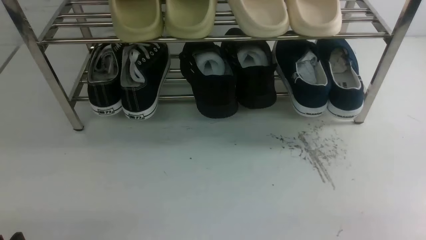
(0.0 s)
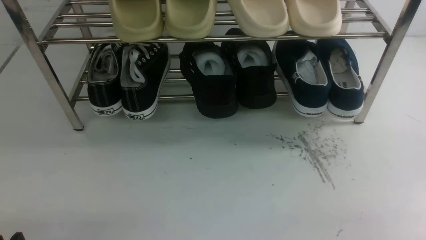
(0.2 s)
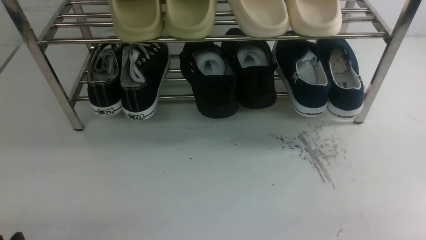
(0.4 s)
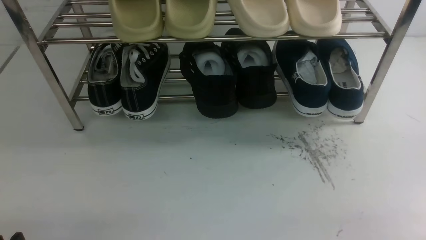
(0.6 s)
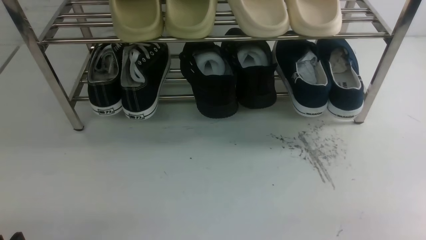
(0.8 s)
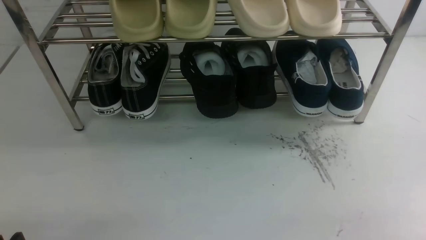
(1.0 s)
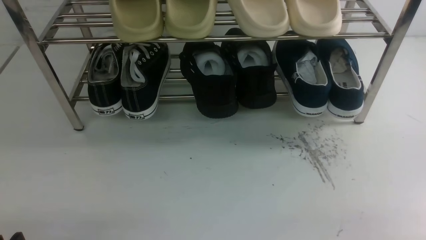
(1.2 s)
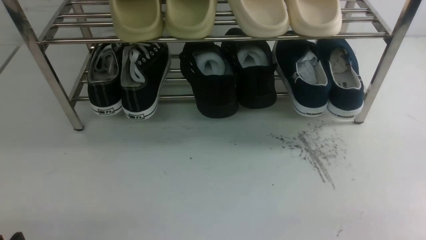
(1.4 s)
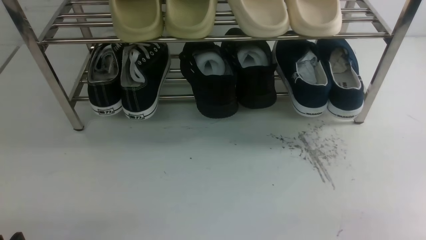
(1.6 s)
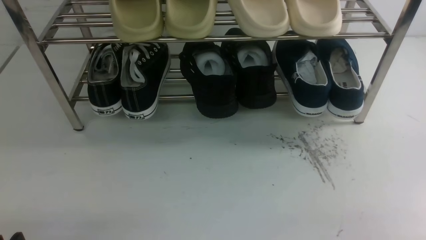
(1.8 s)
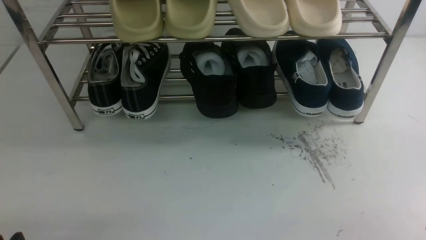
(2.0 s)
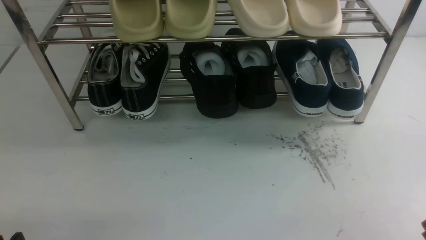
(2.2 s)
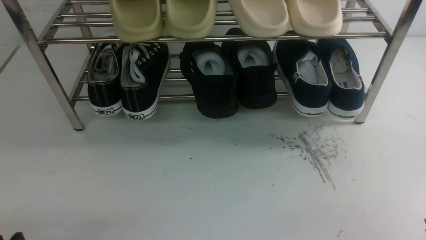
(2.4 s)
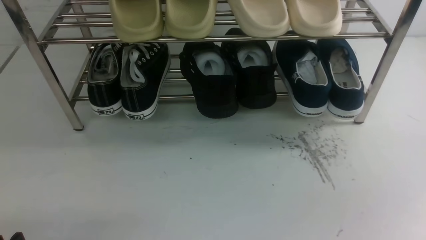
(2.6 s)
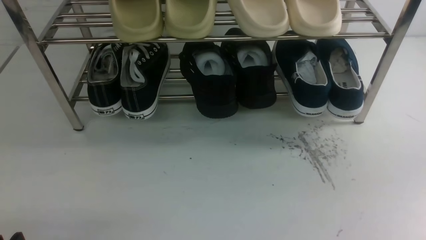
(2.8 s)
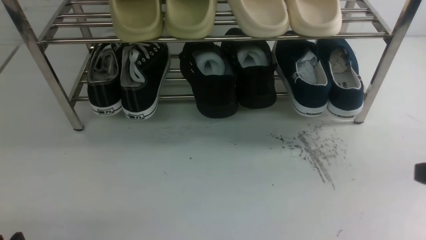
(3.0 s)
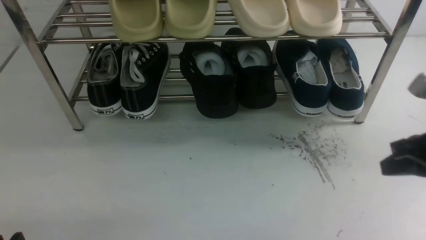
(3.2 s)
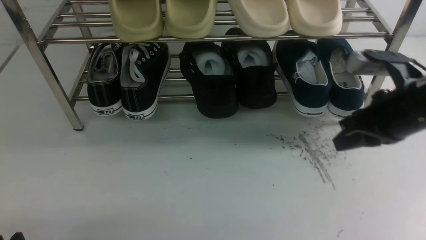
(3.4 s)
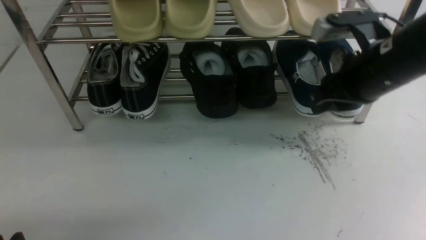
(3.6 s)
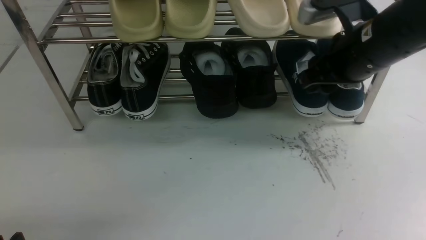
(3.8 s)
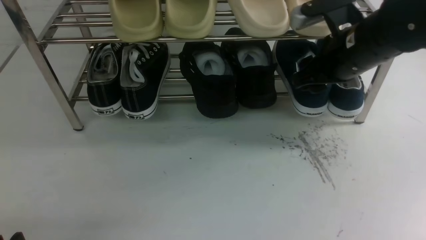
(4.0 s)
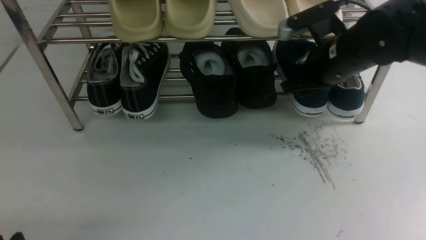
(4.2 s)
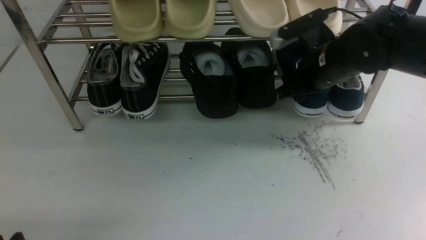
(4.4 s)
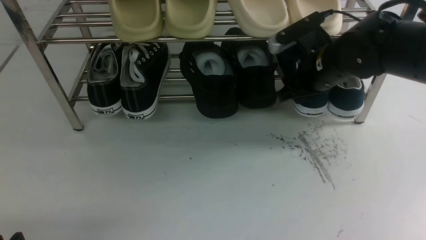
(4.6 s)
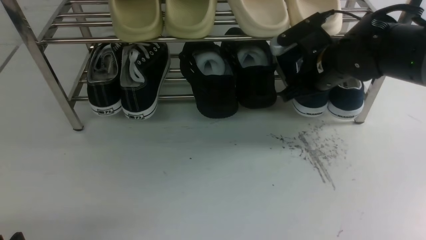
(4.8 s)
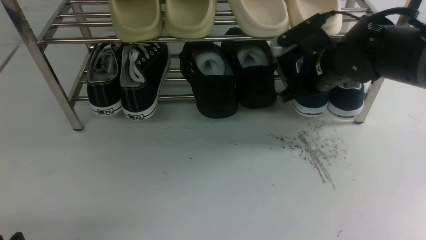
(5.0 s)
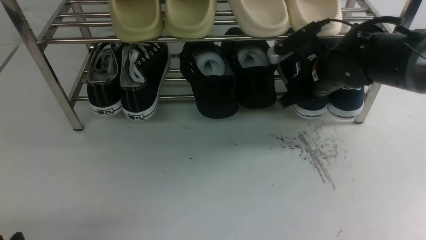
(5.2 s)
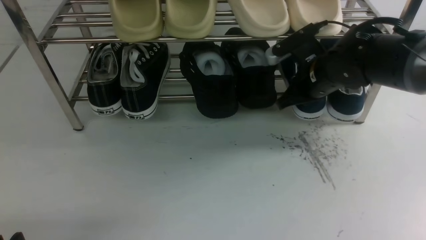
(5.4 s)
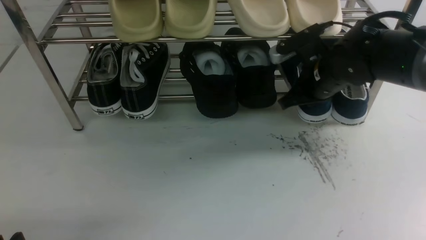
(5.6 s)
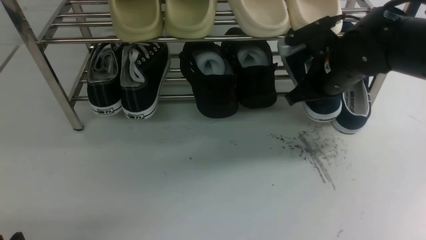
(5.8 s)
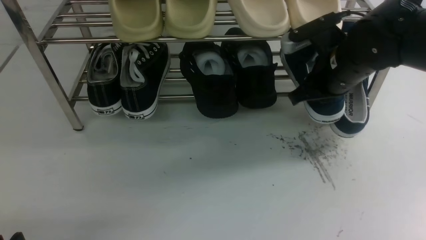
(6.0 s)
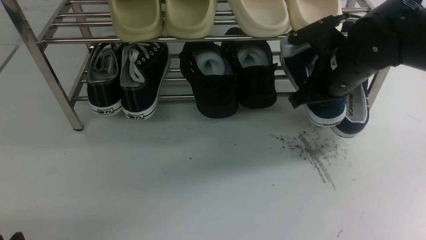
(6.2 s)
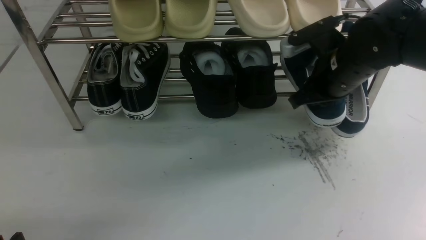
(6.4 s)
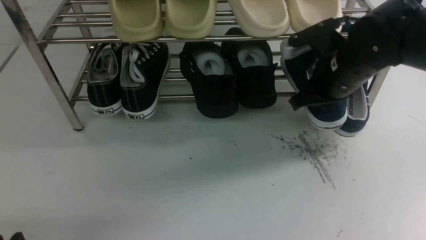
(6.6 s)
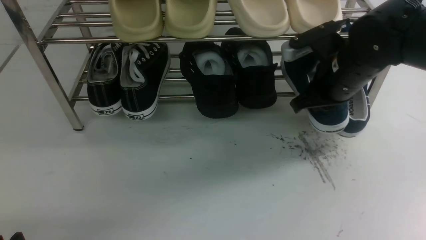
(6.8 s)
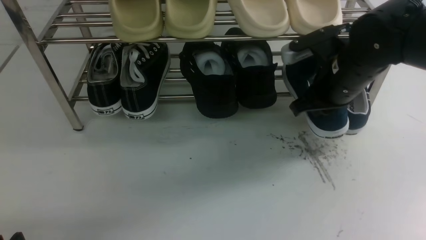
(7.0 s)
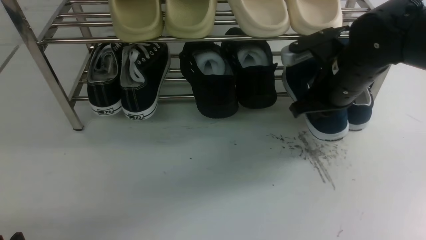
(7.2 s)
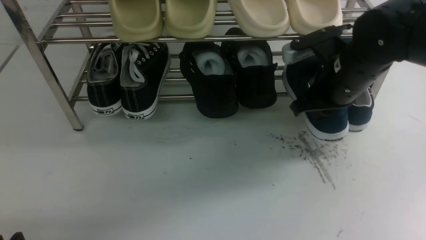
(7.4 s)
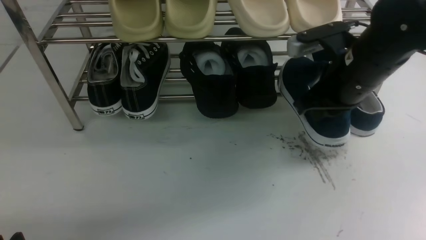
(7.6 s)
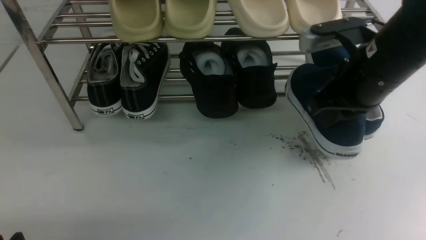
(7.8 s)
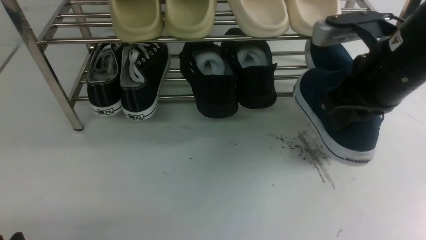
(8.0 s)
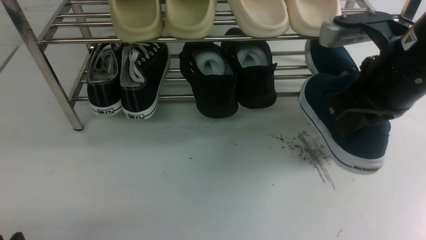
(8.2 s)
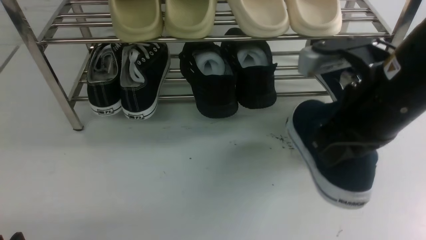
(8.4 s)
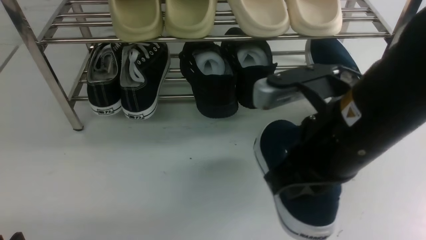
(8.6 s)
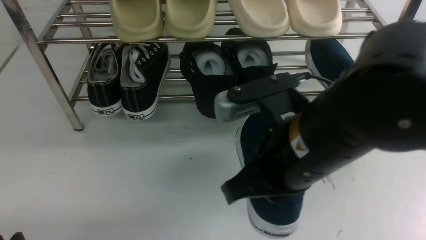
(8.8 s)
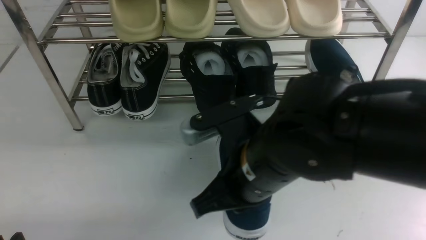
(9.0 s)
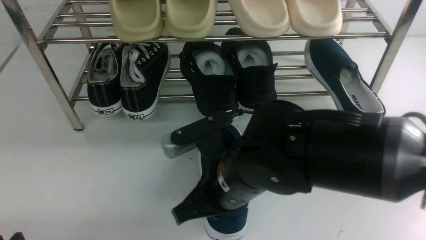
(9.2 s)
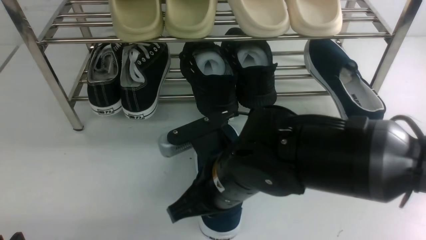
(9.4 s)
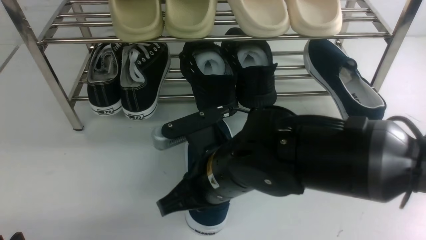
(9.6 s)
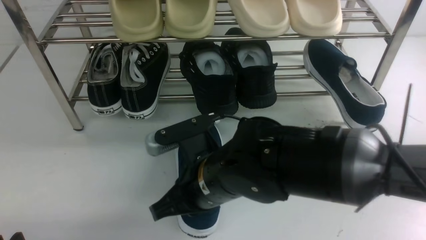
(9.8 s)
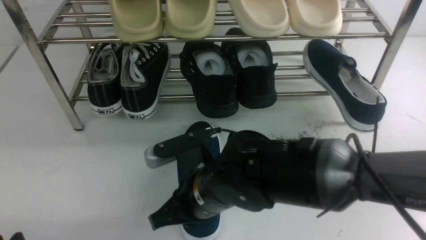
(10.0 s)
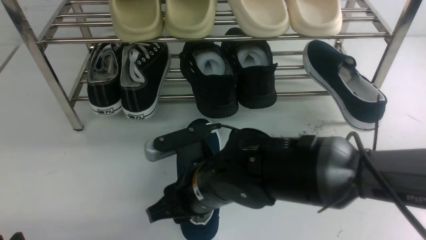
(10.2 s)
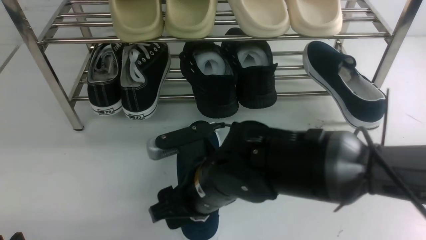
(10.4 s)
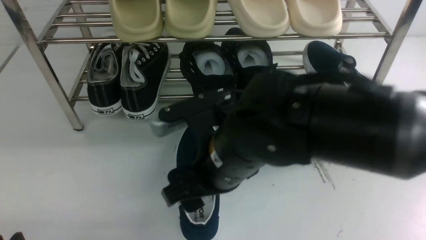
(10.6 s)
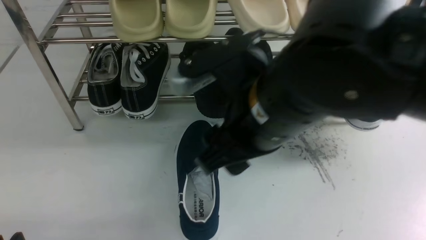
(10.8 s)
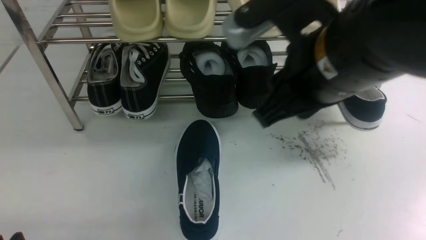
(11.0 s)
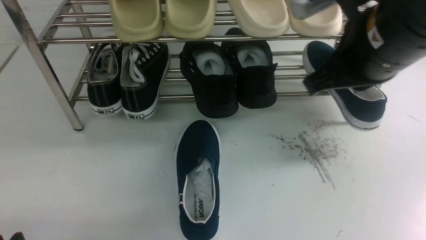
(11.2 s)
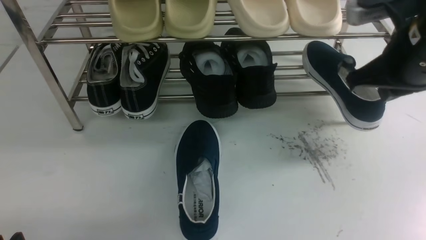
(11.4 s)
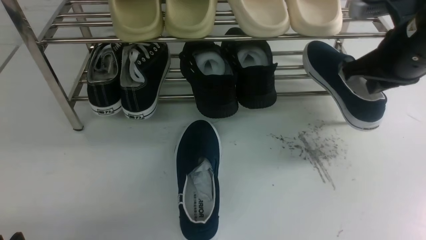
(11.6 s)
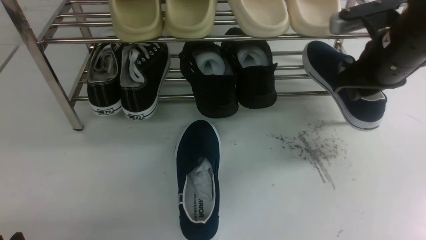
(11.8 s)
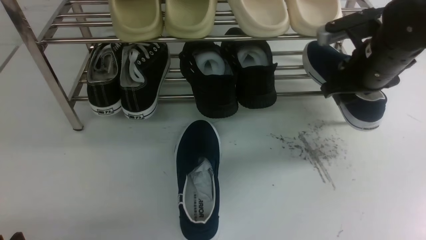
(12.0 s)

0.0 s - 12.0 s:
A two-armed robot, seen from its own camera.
Step, 0.0 s - 7.6 s: use the right arm to clamp a shoe on the right side of the shoe rack.
Step, 7.8 s - 10.6 s: use the right arm to take out the clamped shoe from the shoe rack and put it down.
0.0 s - 1.6 s: Both grippers stay about where they are.
3.0 s - 4.4 s: The right gripper shifts some 25 cm forward and to the left, and opens its fingers.
4.4 s - 6.0 s: The right gripper closes its fingers.
6.0 s - 7.6 s: The right gripper ends up some 5 cm from where it was.
7.6 s - 9.0 s: The right gripper travels to the left and backward by some 20 cm.
9.0 s - 10.4 s: The right gripper ends up some 5 cm from where it was, and opens up.
10.4 s - 12.0 s: The right gripper travels to the right and forward by roughly 25 cm, and closes, then opens again.

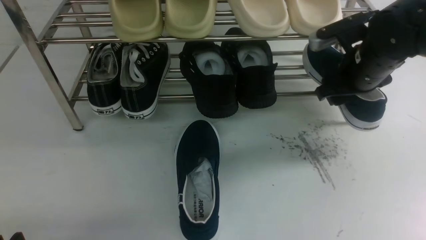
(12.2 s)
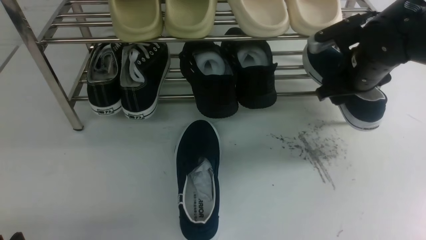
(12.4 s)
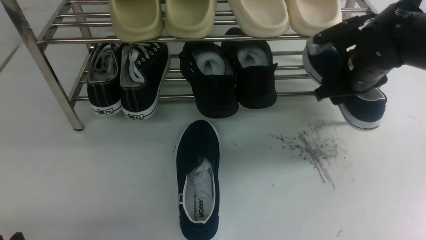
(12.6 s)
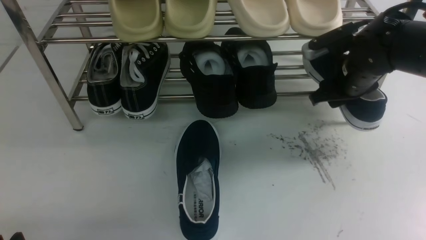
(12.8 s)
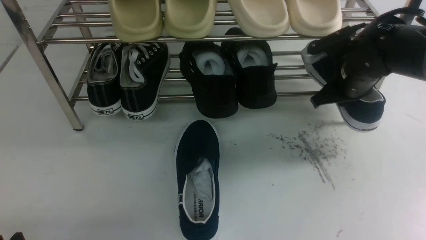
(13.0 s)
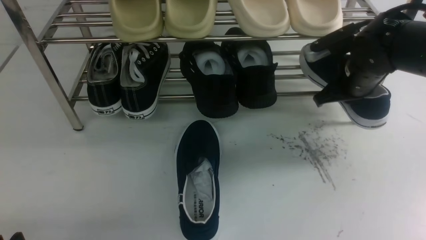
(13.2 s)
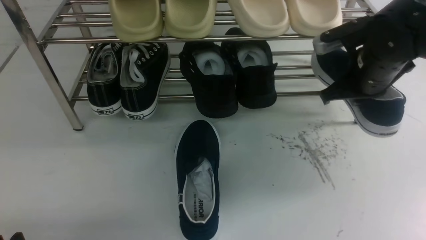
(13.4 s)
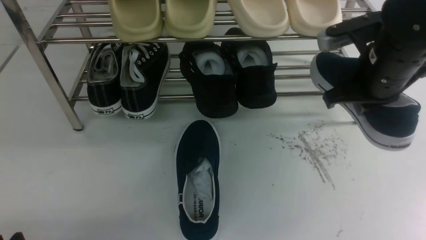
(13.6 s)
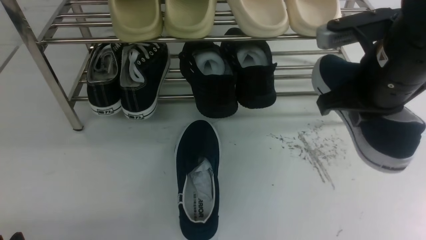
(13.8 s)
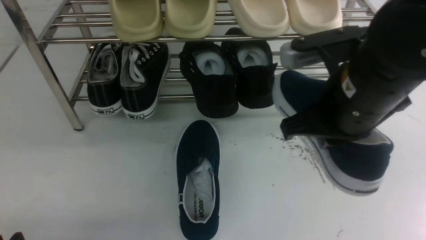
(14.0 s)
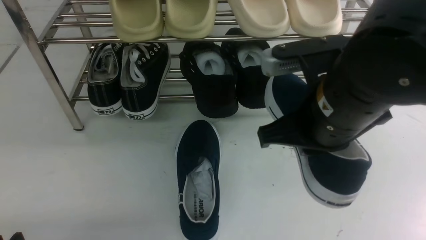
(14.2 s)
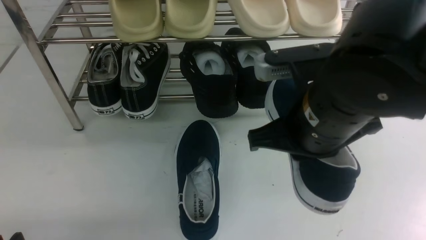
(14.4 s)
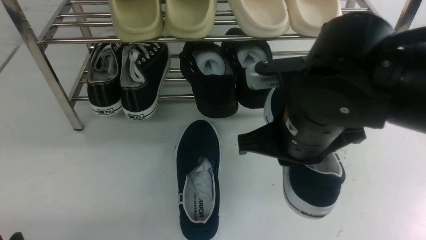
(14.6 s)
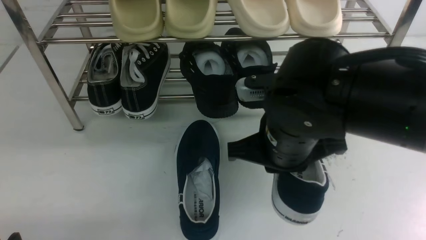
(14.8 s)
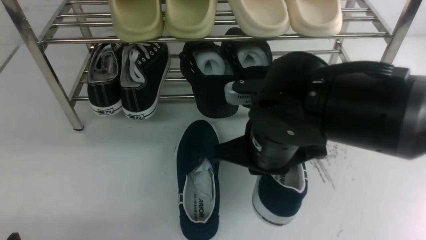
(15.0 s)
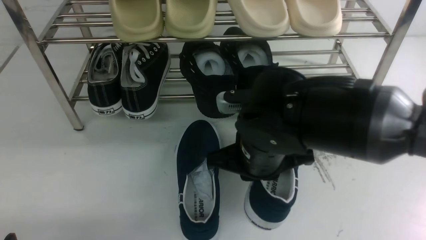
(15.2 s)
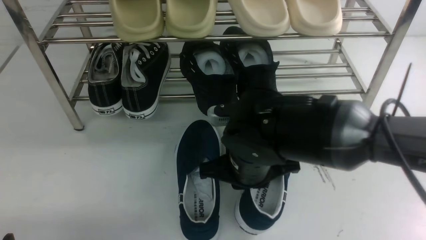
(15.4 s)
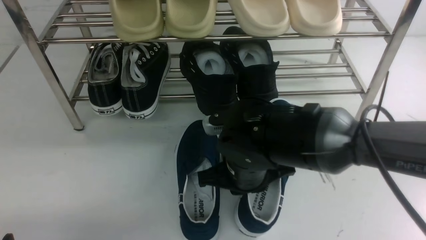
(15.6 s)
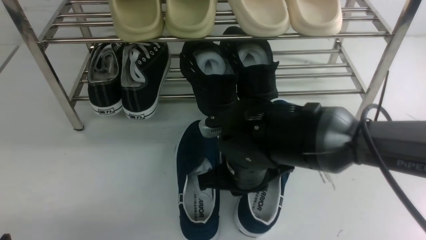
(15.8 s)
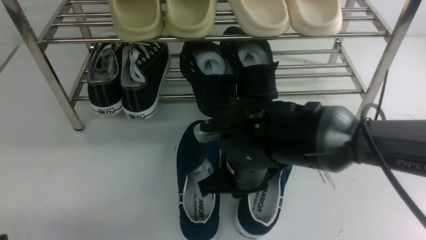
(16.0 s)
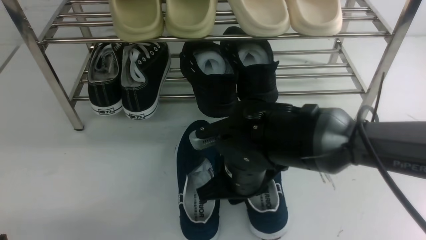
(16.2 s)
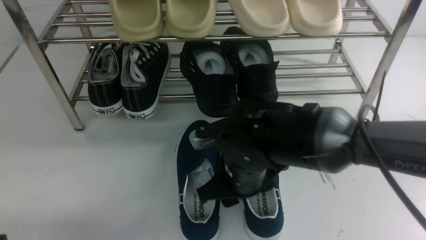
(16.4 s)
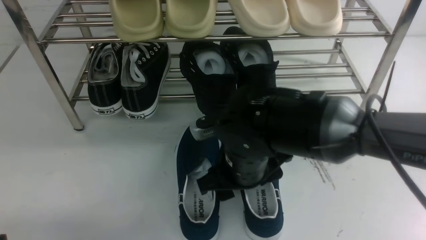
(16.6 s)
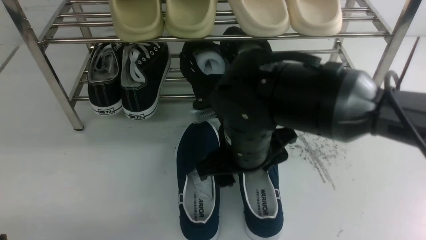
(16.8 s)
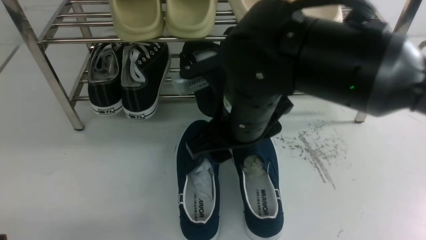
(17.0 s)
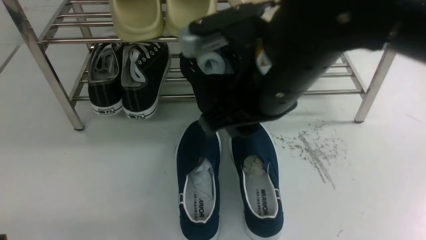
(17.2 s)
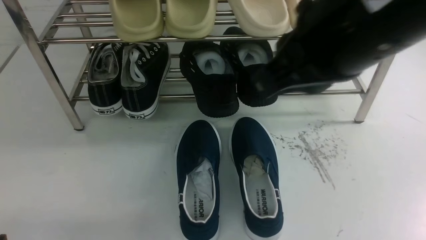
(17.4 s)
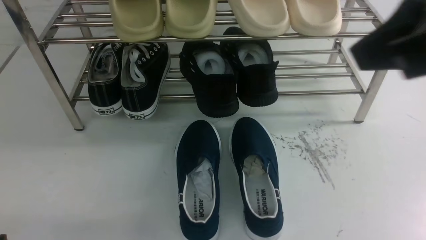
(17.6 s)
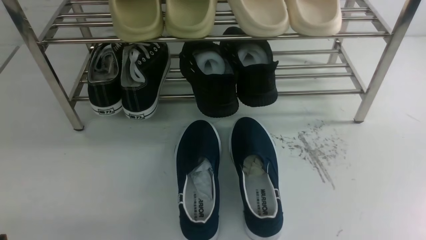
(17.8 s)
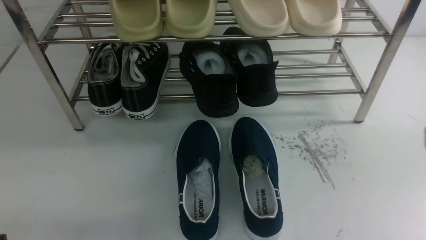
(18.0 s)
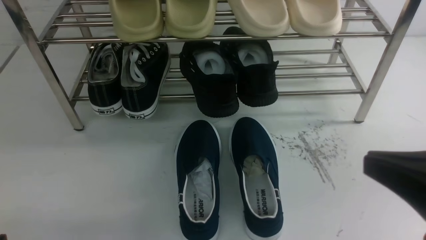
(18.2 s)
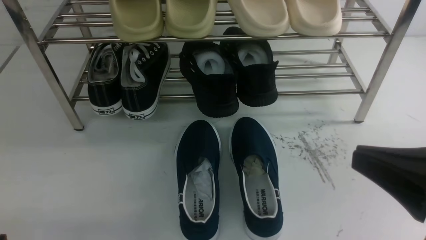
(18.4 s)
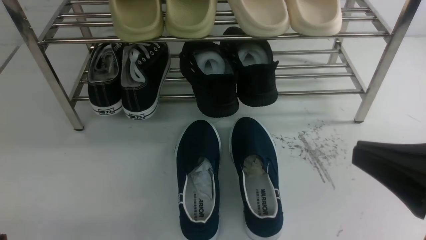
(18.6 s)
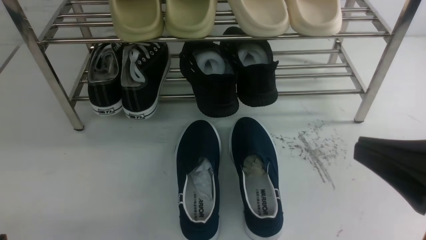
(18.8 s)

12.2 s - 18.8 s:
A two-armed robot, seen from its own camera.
Step, 13.8 s - 16.8 s: use the right arm to take out the clamped shoe from the shoe rack and put it down.
12.2 s - 13.8 s: The right gripper shifts about 15 cm backward, upward and to the left, and closes its fingers.
13.8 s - 15.4 s: The right gripper goes some 15 cm to the left and downward.
15.4 s - 17.2 s: The right gripper goes about 15 cm upward, and opens.
17.2 s - 18.8 s: The right gripper goes some 20 cm to the right, backward and downward, and closes.
